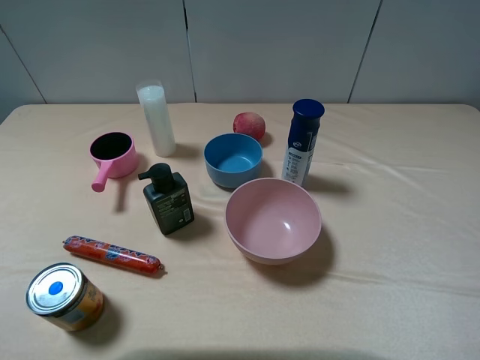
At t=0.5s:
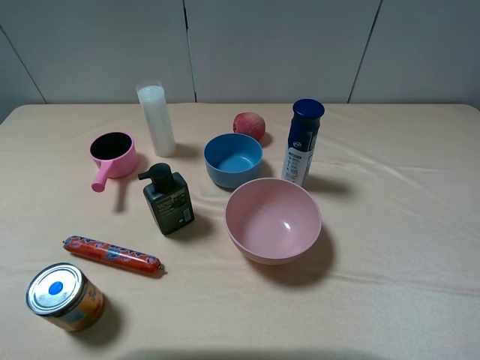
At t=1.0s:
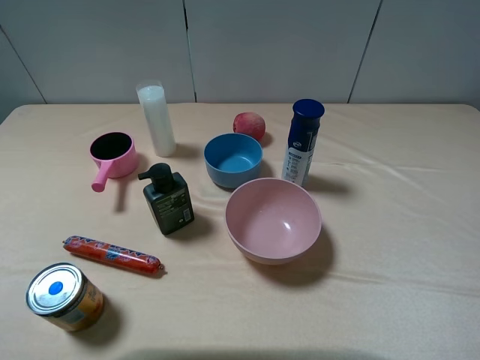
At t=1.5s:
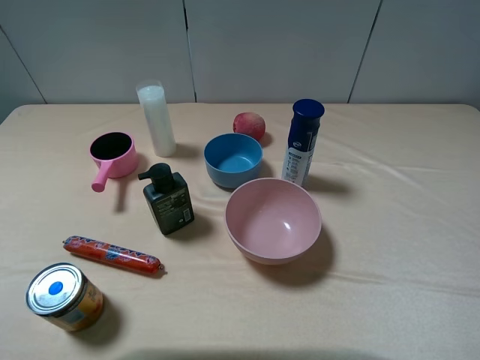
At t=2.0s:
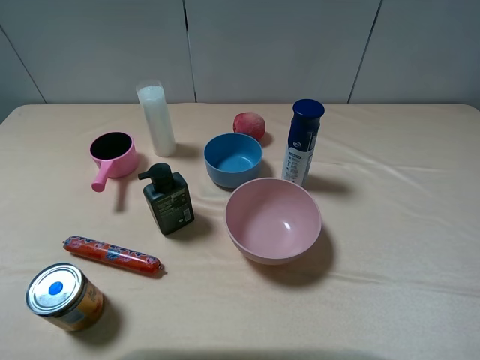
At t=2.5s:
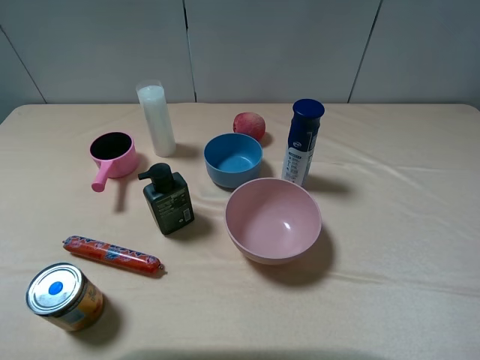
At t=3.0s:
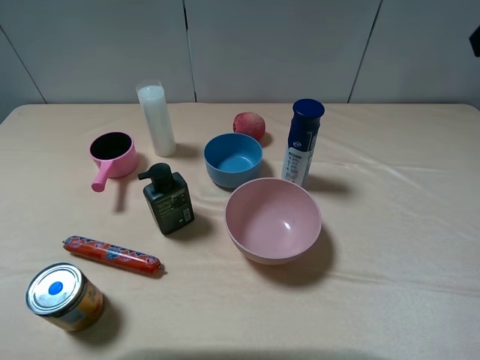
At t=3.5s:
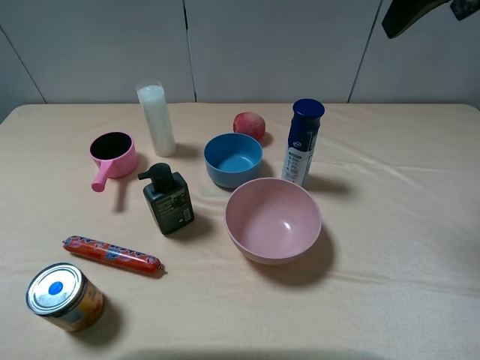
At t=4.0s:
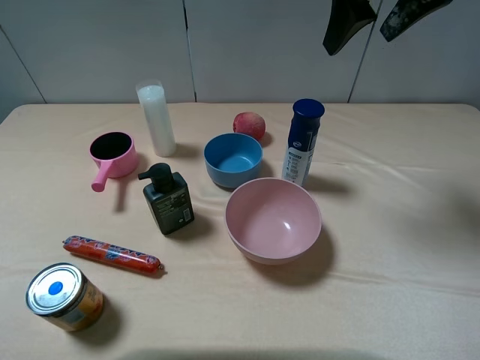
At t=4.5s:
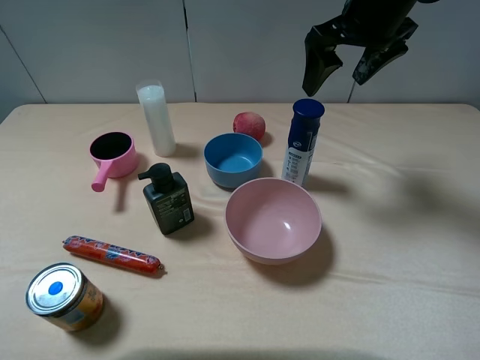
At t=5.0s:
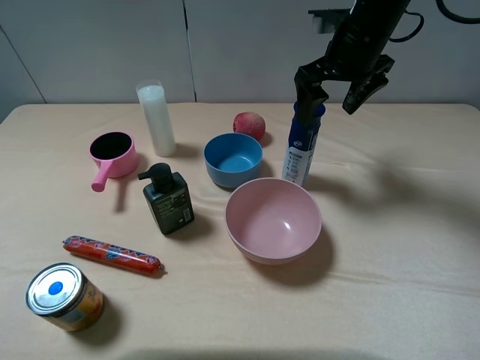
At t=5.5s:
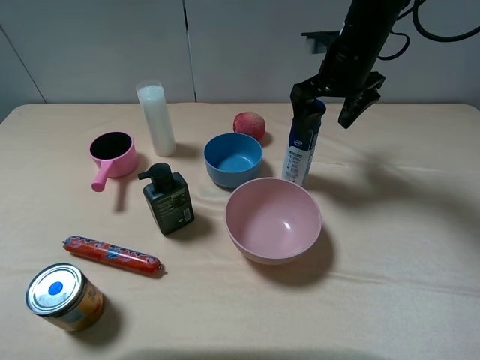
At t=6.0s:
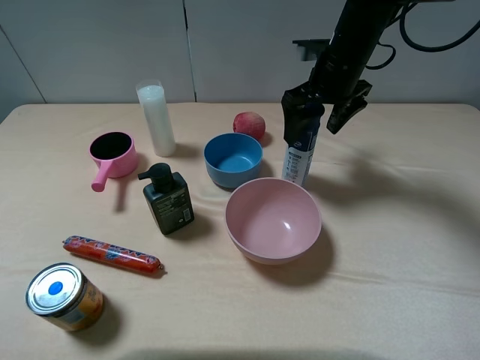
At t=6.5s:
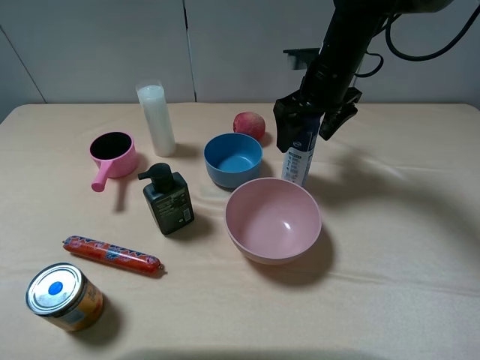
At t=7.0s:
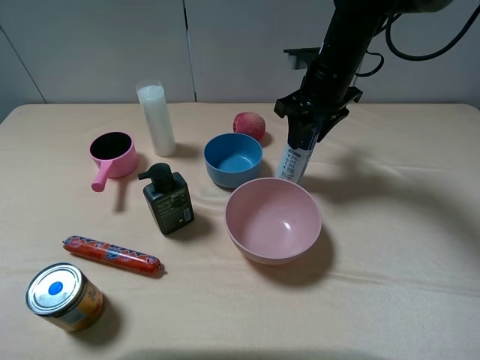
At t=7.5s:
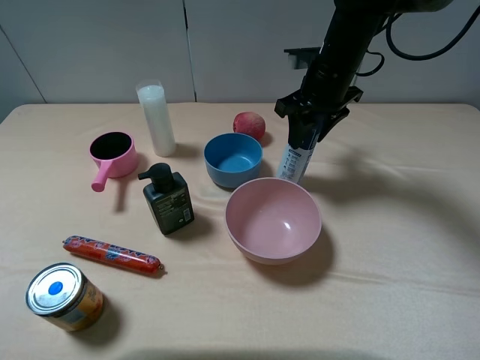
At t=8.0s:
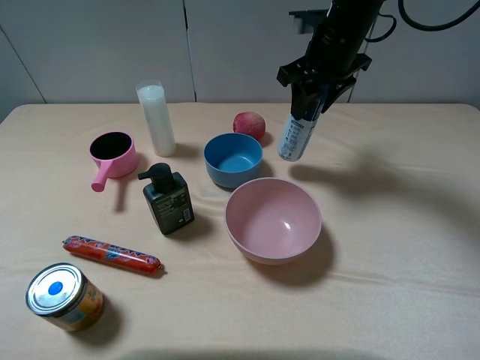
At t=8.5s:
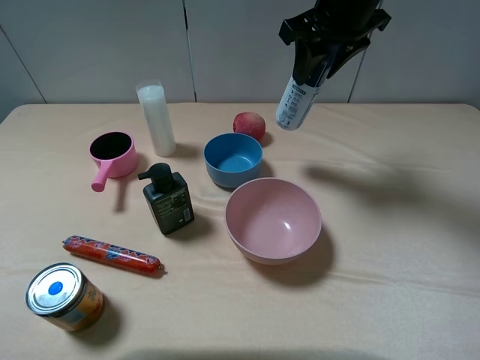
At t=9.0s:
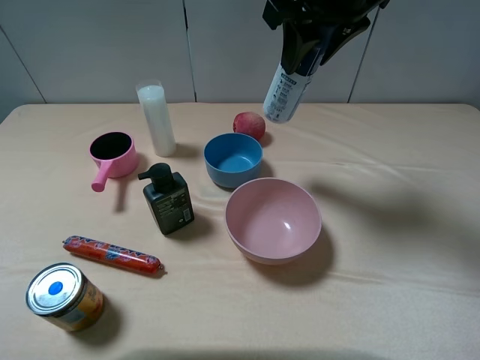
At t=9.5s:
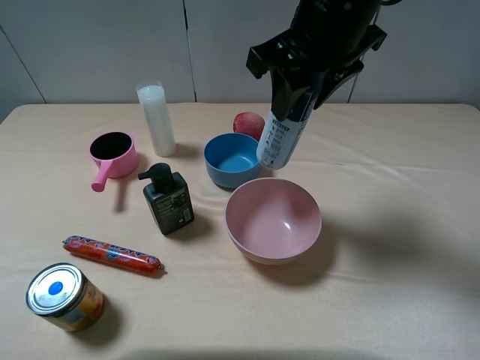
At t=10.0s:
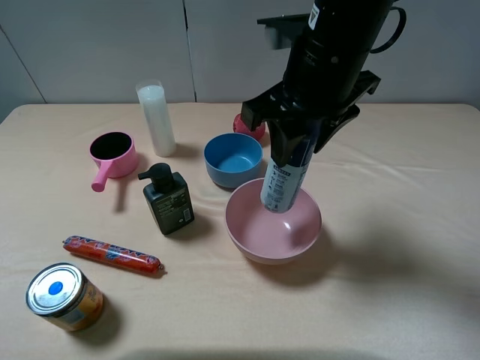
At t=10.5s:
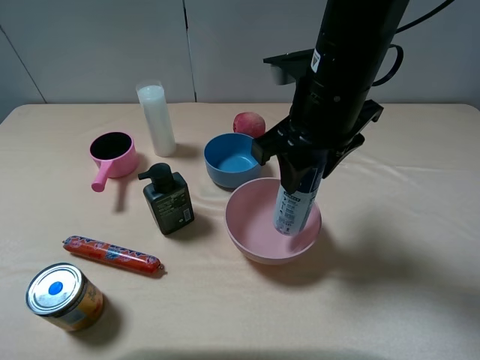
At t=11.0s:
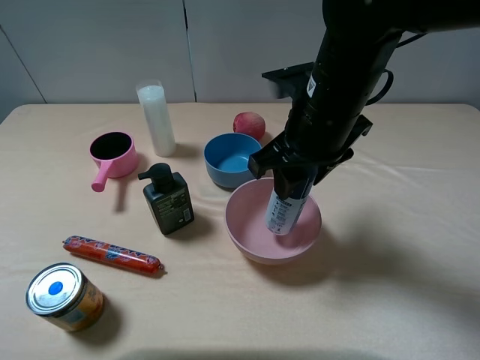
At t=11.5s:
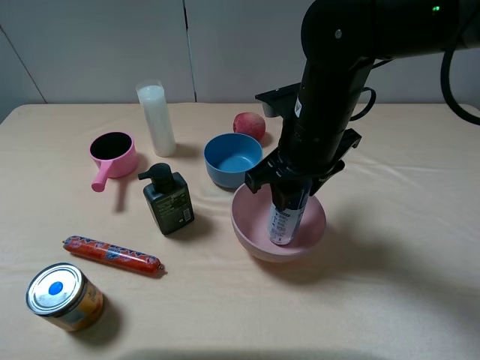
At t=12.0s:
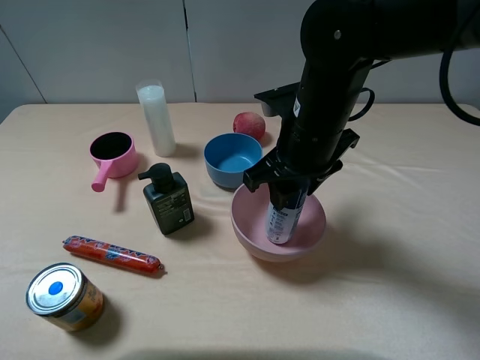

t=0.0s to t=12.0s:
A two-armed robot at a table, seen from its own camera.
Task of the whole recording: pick up an item with a gripper and place it in a random container on the table.
Step, t=0.0s to t=7.0s: Grasp the yogurt with the right gripper.
t=2.0s to t=4.0s: The right gripper shifts approximately 30 cm forward and to the left.
t=4.0s to t=6.0s: The right gripper heads downward, covering approximately 15 cm.
t=6.0s to t=8.0s: The right gripper closes its fingers.
t=8.0s to t=10.0s: The right gripper goes about 15 cm backward.
t=10.0s to t=12.0s: The right gripper goes about 10 cm downward.

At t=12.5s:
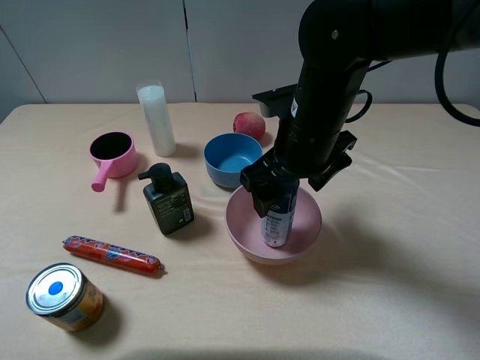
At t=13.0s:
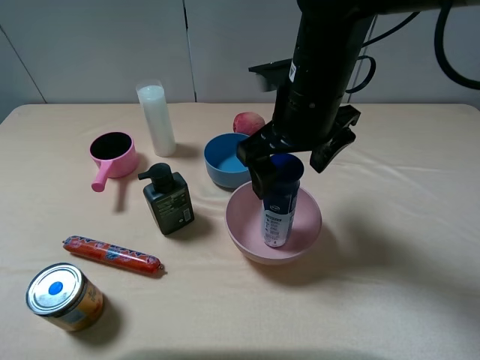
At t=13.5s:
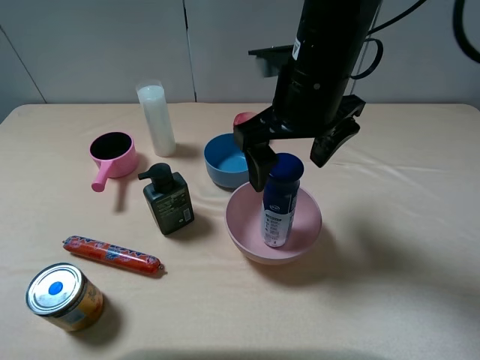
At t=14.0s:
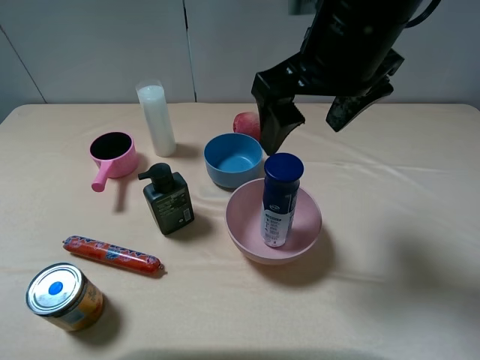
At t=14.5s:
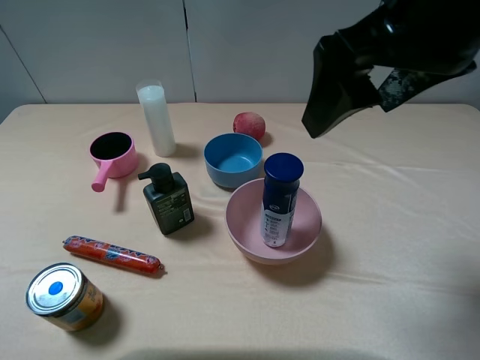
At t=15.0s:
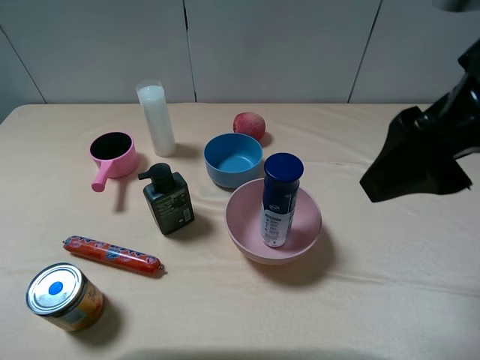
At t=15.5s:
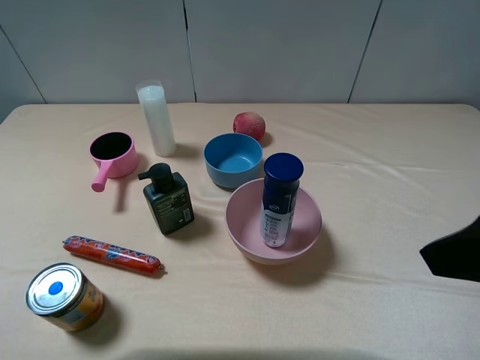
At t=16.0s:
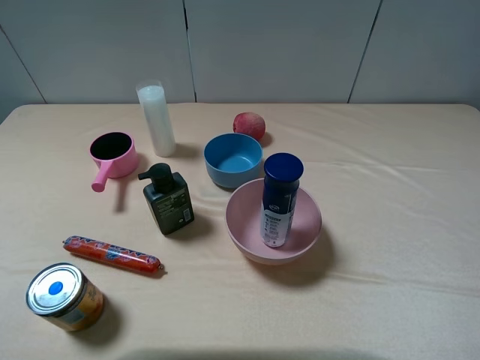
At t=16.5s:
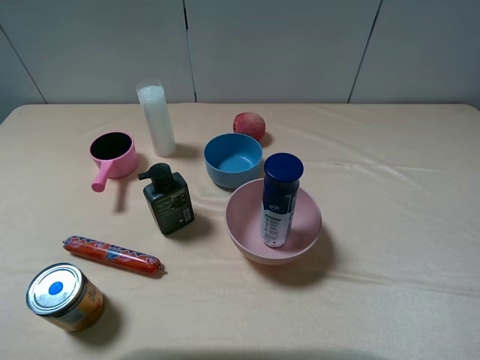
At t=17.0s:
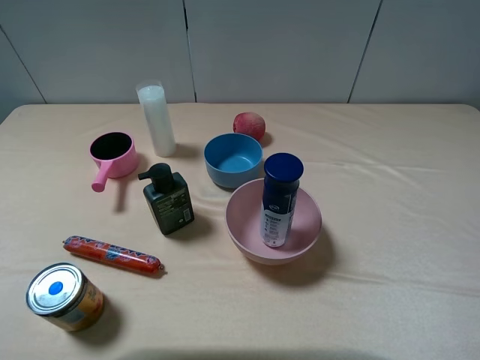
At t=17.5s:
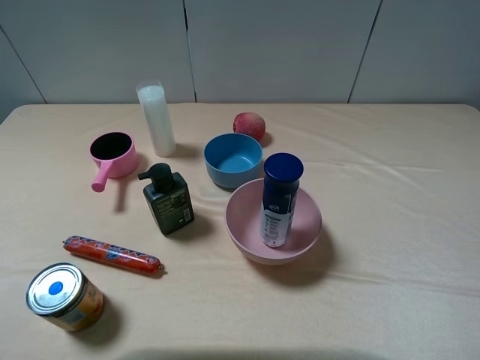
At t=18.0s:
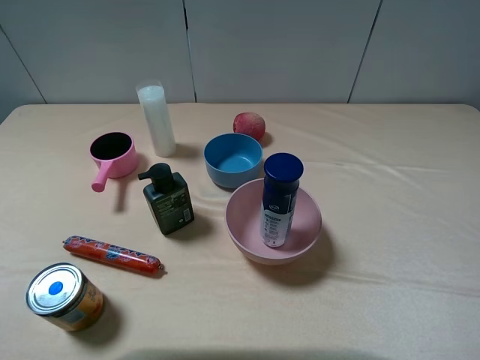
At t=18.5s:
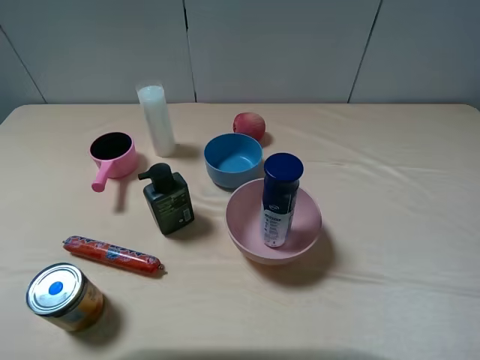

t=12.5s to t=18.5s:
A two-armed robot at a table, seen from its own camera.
Task of the whole recording: pick up an item with a gripper and place it in a random container on the table.
t=12.5s to t=14.5s: The right gripper travels upward and backward by approximately 20 cm.
t=14.5s to t=16.5s: The right gripper shifts about 25 cm backward, to the right and downward.
t=16.5s to t=18.5s: Both grippers stay about where they are.
